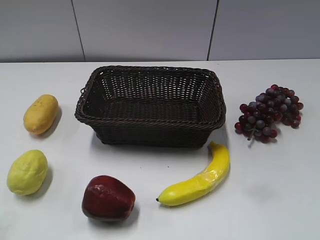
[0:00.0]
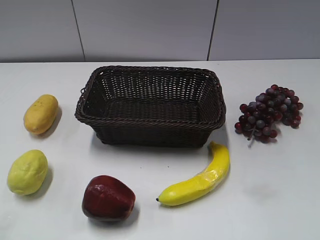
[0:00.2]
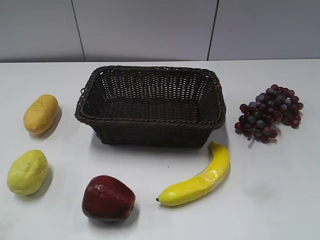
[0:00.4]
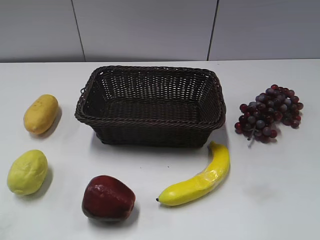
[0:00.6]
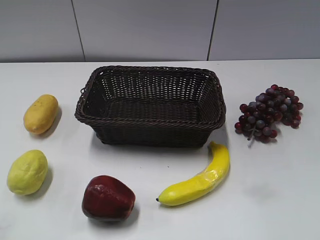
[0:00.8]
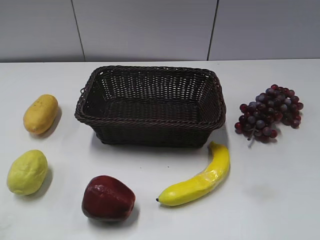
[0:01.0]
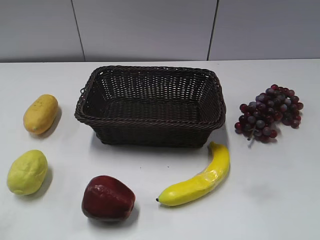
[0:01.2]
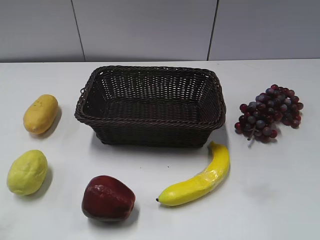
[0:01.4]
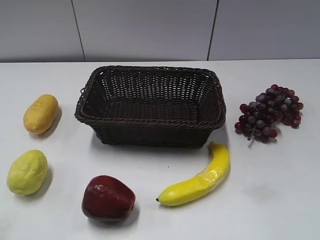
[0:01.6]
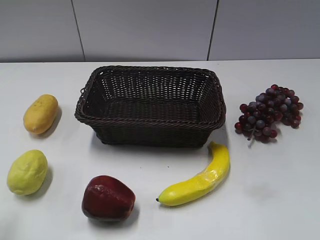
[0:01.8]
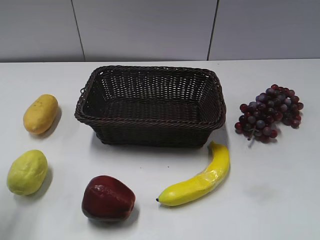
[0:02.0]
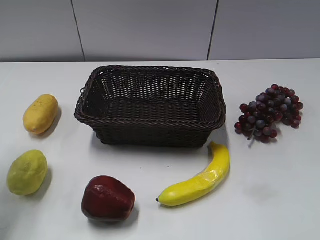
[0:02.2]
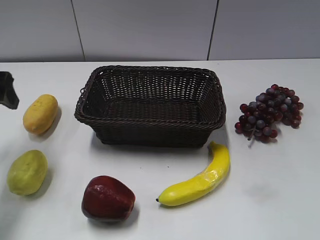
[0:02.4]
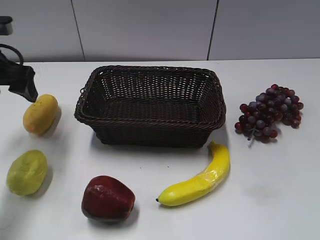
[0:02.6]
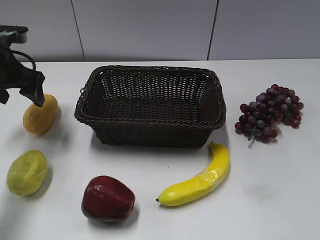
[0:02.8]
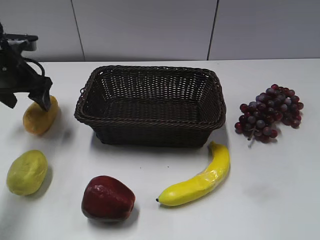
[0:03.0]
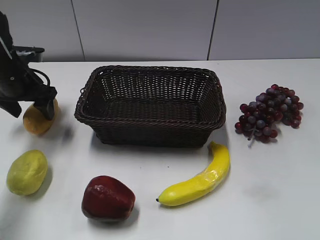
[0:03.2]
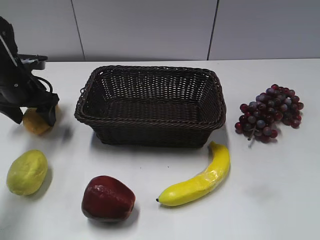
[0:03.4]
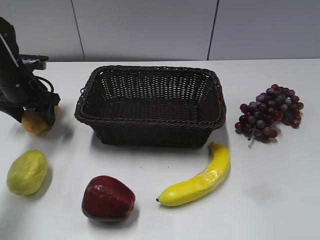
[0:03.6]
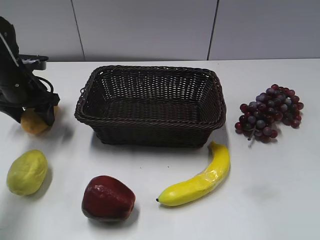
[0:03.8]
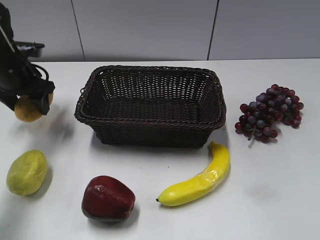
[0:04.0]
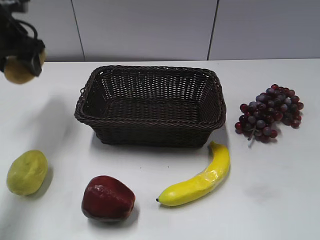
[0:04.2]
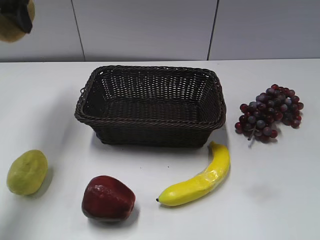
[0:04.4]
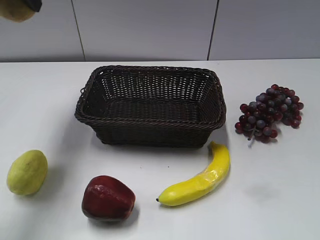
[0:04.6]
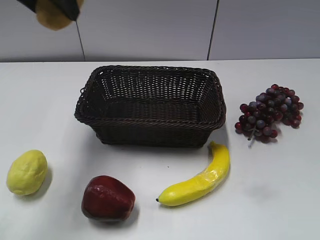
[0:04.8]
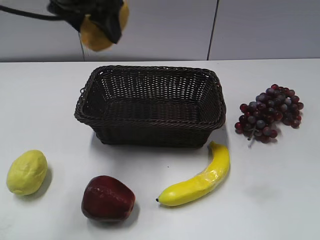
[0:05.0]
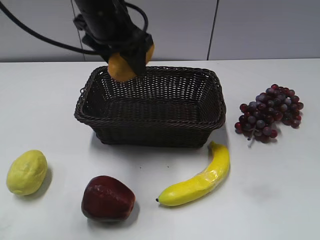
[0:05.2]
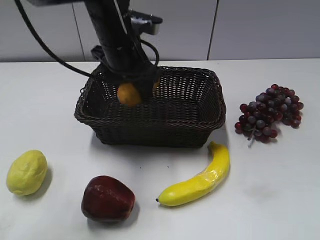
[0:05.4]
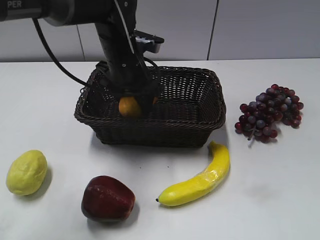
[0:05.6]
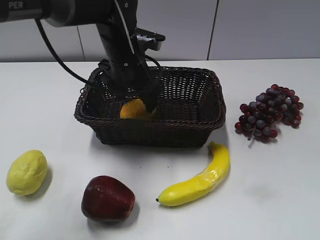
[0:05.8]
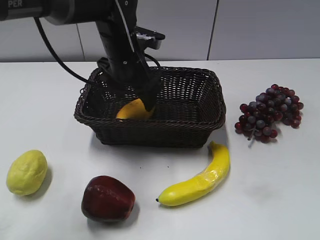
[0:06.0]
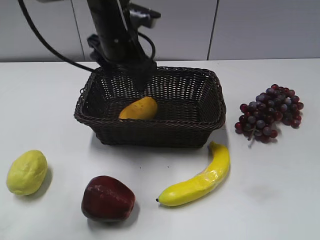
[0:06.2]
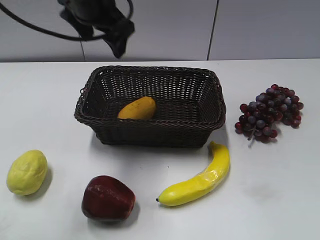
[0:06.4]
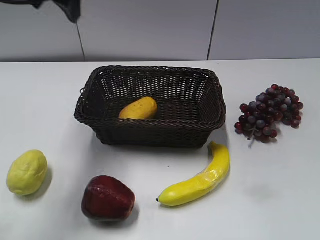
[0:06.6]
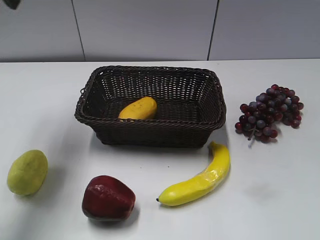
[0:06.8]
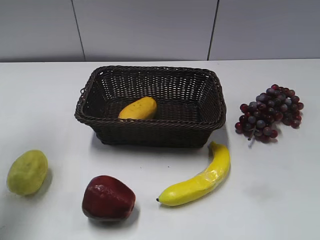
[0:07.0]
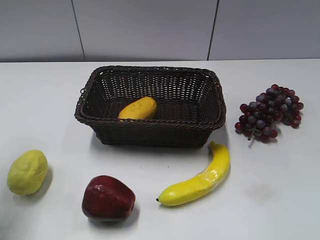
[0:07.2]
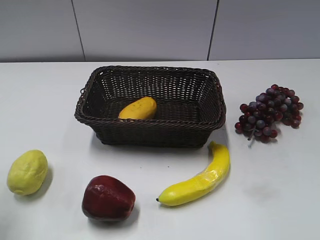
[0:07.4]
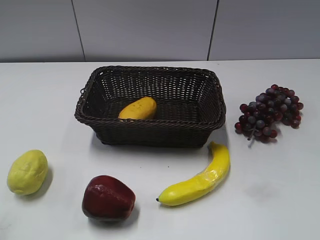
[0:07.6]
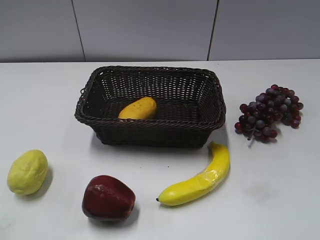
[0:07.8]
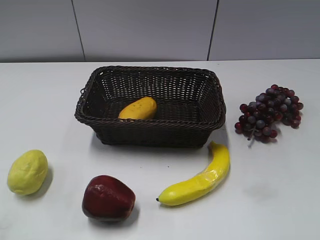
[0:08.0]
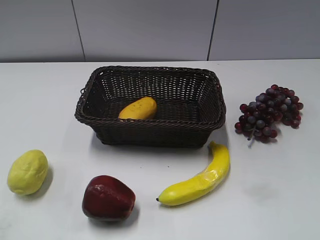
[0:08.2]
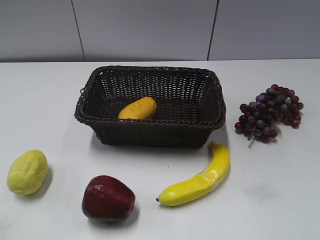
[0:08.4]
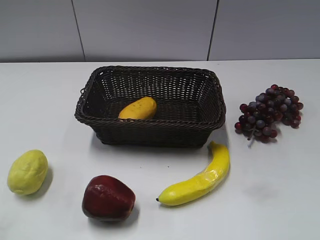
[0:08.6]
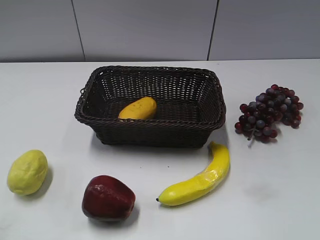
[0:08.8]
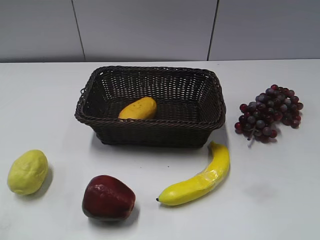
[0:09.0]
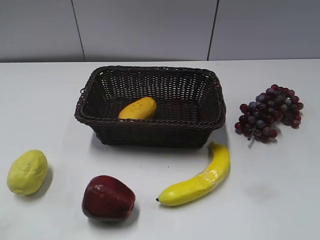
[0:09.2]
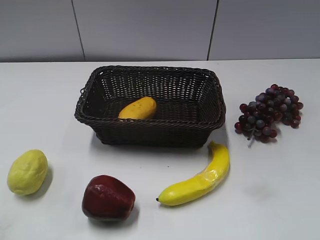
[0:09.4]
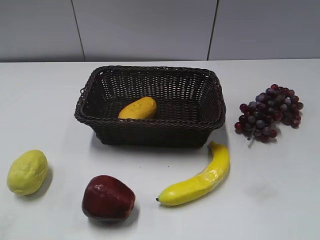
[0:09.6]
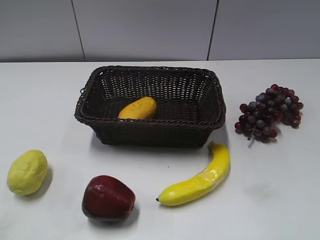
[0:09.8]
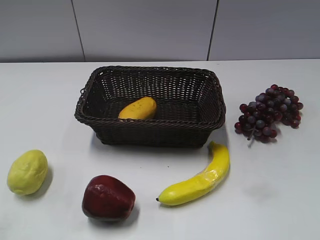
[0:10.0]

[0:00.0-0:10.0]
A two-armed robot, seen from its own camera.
Step, 0:02.4 to 0:03.6: Grasp the mango with left gripper.
Step, 0:03.8 to 0:05.8: Place the mango in the basket with left gripper.
0:01.4 to 0:02.8: The left gripper heads forward, covering some 40 cm, and opens its fingers.
0:02.8 to 0:04.2: The left gripper is displaced upward by some 5 cm, and closes.
0:04.2 to 0:05.8: The left gripper moves to the right, approximately 20 cm, and opens up.
0:05.8 to 0:07.2: The left gripper travels to the left, upward and backward by about 35 cm.
0:07.2 to 0:08.6: The left gripper goes some 25 cm backward and downward.

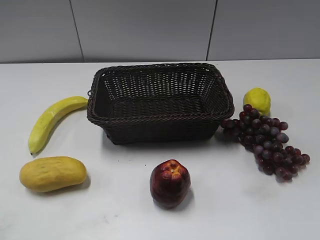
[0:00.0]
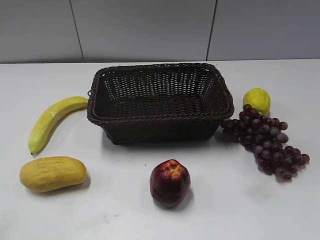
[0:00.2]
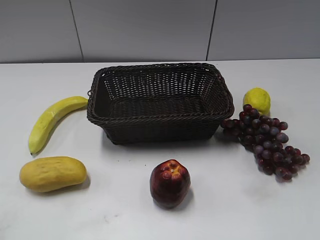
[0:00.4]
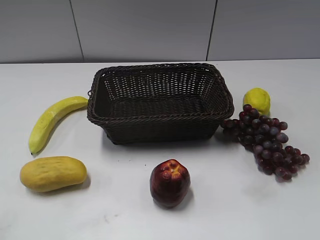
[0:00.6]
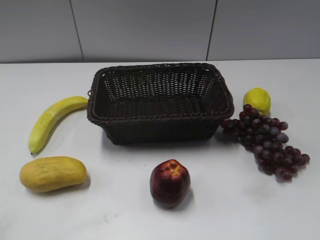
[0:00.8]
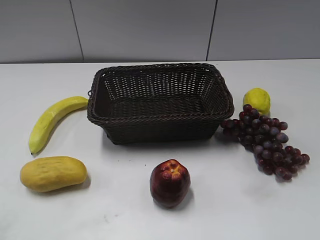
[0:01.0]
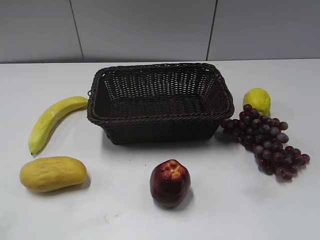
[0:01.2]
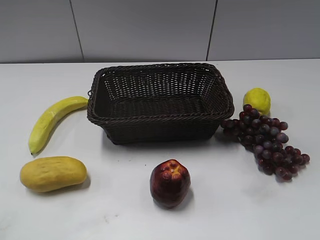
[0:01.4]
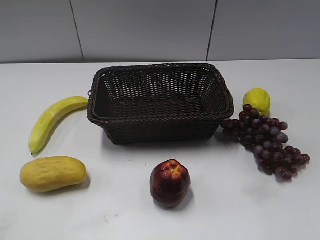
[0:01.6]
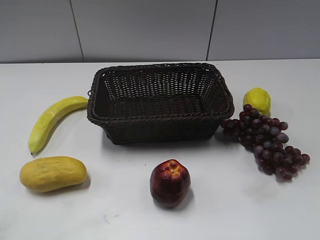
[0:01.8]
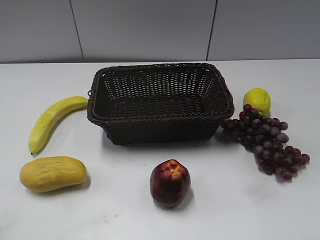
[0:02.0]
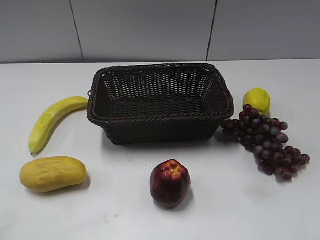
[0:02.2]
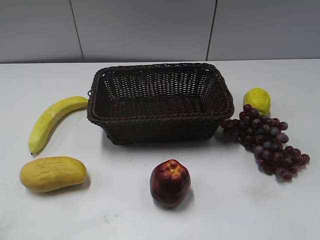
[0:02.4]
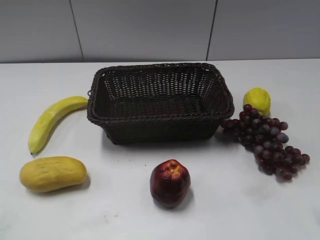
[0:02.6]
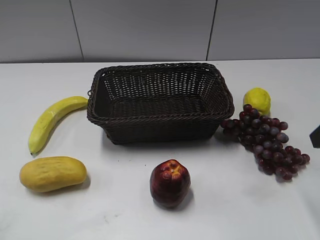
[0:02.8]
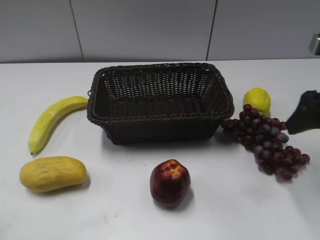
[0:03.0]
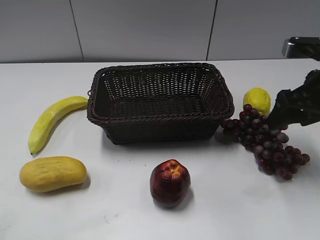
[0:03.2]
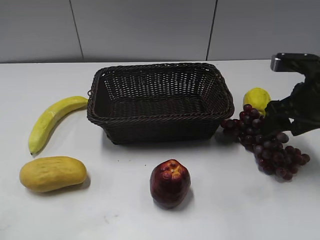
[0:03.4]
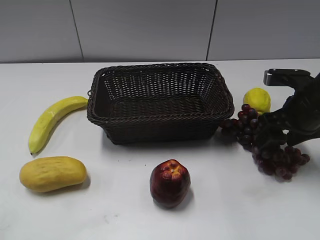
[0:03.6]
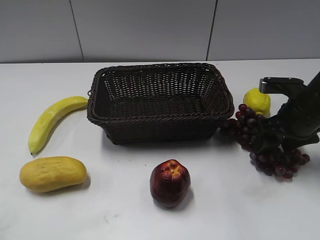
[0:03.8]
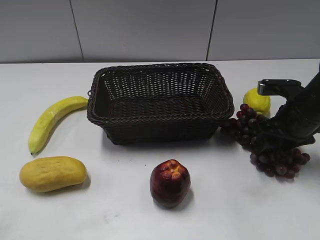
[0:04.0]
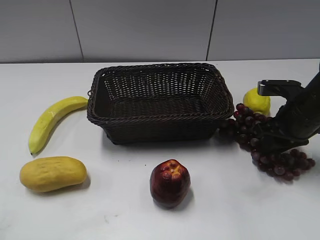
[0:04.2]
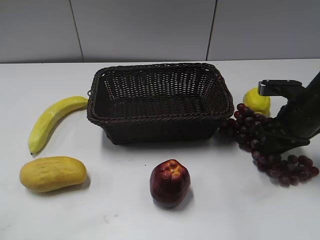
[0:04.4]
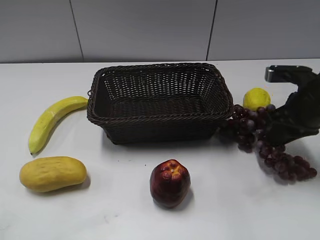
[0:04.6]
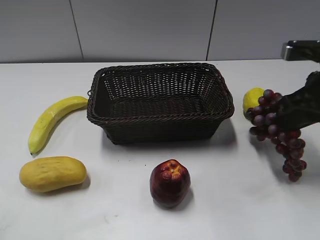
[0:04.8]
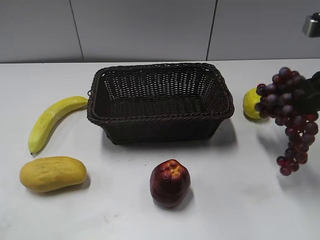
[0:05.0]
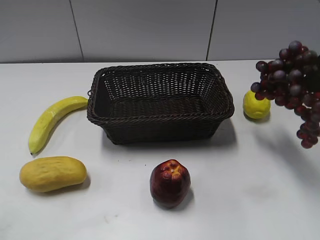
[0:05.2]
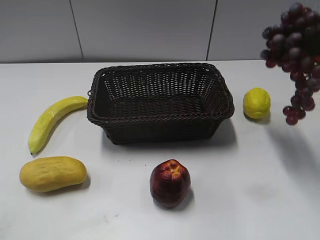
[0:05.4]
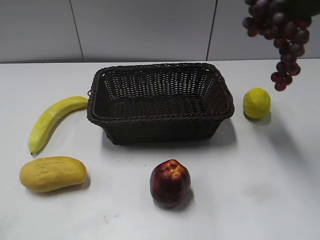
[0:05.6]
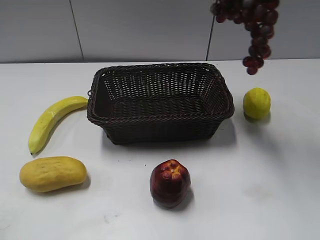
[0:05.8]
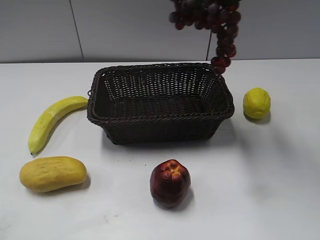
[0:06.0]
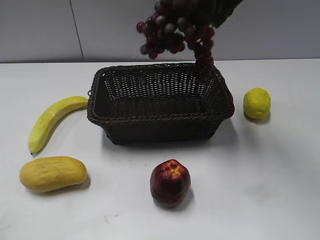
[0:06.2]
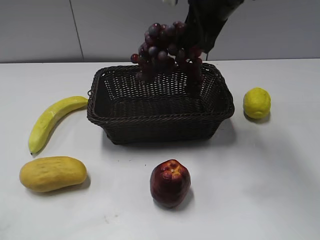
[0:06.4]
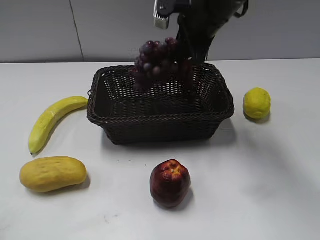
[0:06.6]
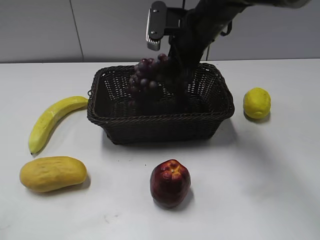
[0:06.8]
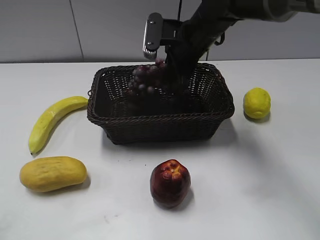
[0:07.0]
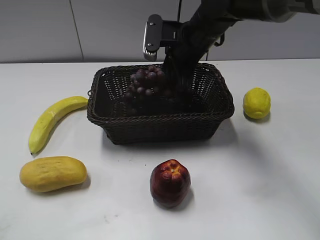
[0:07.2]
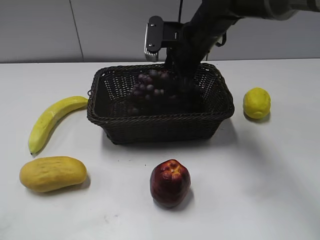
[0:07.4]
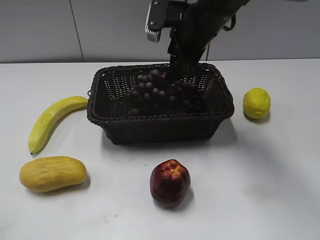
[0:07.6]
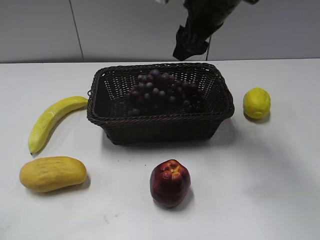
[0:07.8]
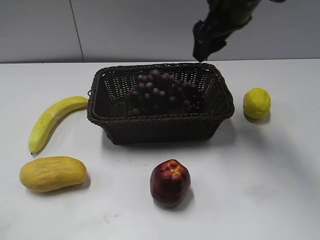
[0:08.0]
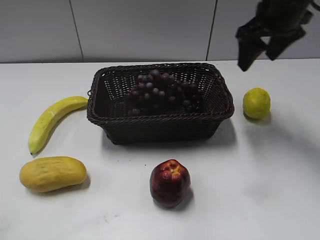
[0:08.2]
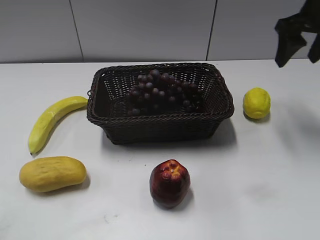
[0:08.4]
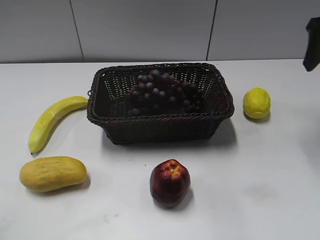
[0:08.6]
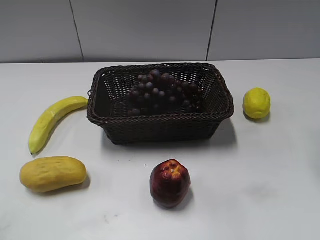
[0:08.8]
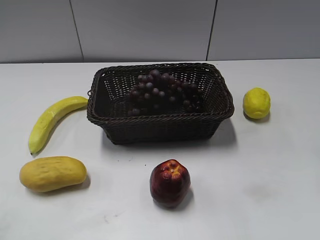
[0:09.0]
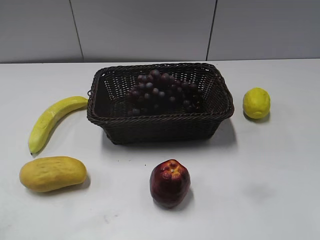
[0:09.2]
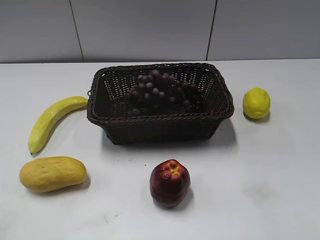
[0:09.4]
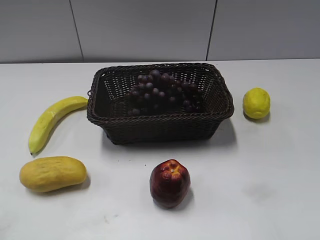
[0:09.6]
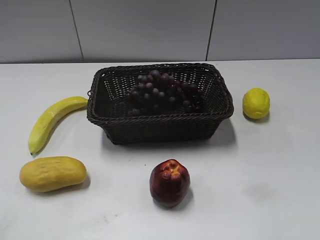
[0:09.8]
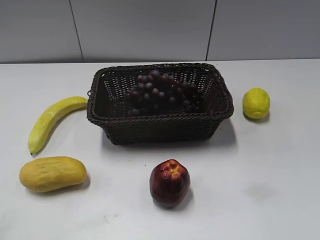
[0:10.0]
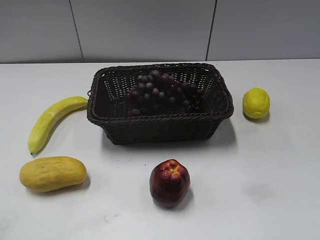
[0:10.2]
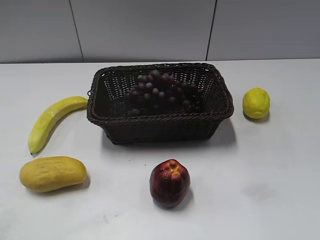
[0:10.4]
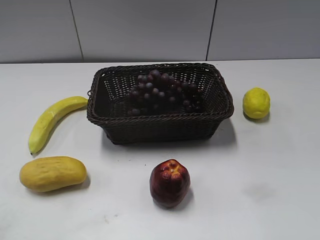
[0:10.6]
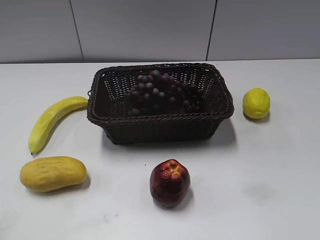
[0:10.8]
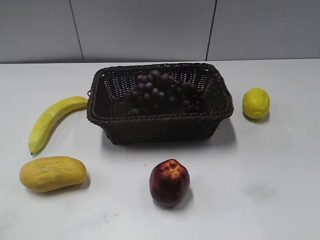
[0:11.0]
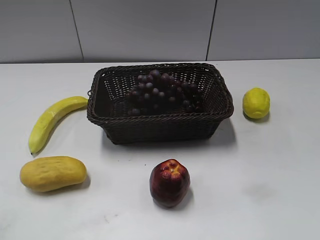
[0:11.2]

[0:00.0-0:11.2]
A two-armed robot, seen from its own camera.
Step, 0:02.8 to 0:04.2: Grasp the grape with right gripper.
Step, 0:04.6 to 0:07.2: Place the grape in the basket with right gripper.
0:01.6 to 0:03.2: The right gripper travels forward by about 25 cm.
0:03.2 to 0:04.8: The right gripper closes.
0:04.8 to 0:06.4: The left gripper closes its fingers, while the right gripper heads to the left, upward and forward, covering approximately 20 cm.
0:06.4 to 0:08.0: The right gripper reaches about 10 cm downward, then returns, and opens.
0:08.0 to 0:09.6: The right gripper goes roughly 30 cm backward and to the right.

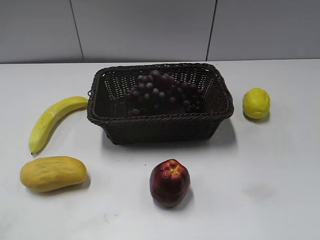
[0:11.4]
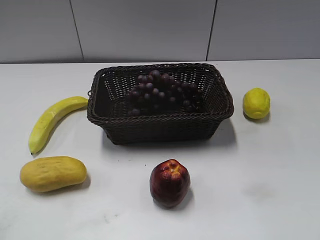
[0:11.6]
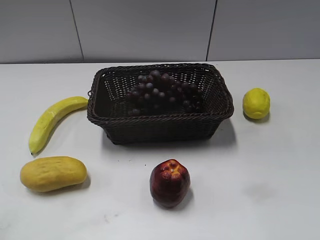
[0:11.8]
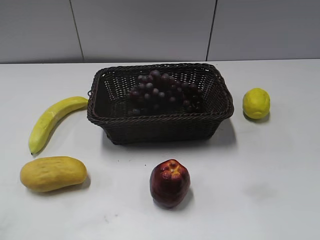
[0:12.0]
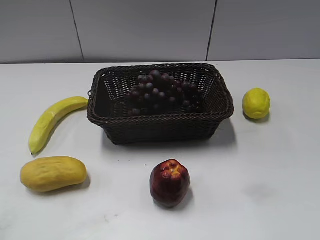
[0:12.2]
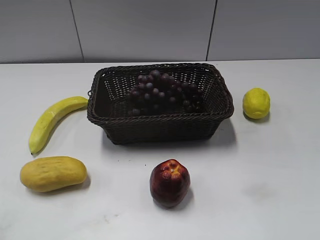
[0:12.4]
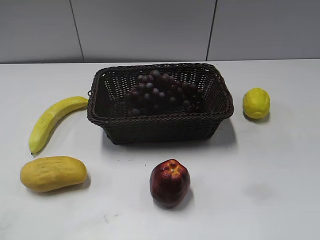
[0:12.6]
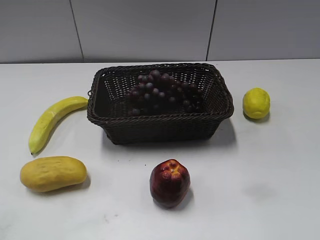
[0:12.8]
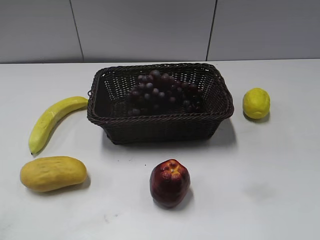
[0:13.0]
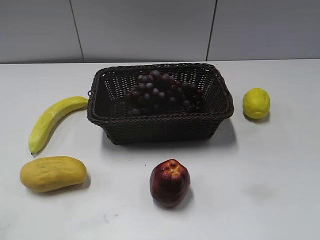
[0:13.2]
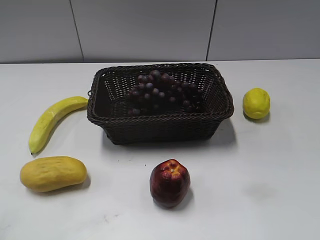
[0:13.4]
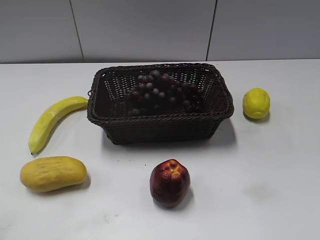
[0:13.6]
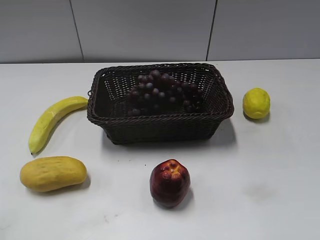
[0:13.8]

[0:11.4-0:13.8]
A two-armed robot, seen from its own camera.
0:11.4 to 0:13.8: Neither gripper changes place.
